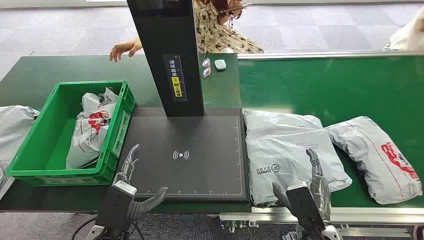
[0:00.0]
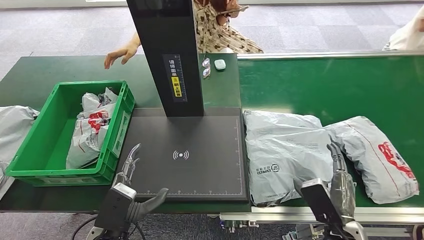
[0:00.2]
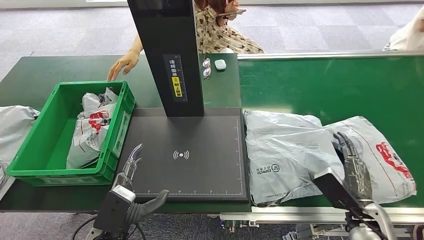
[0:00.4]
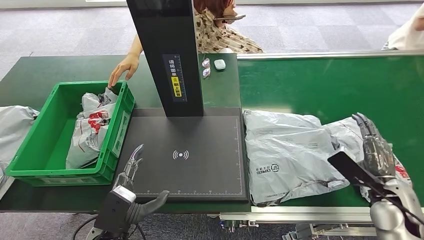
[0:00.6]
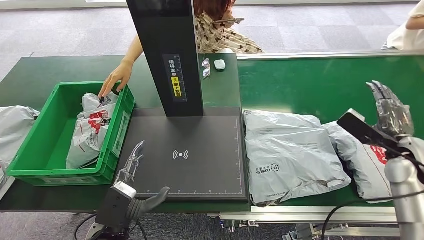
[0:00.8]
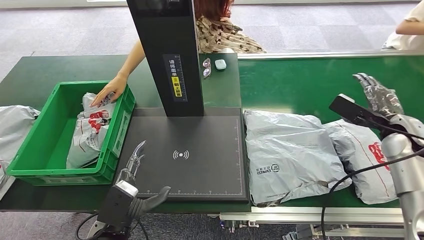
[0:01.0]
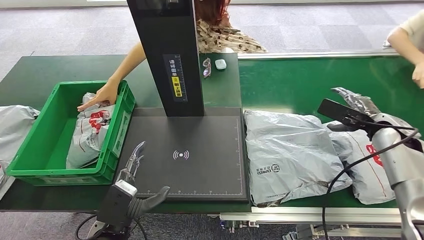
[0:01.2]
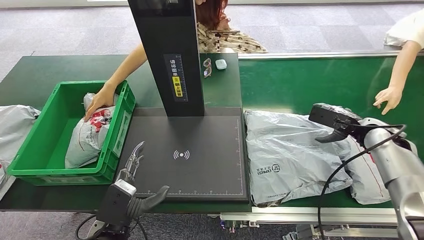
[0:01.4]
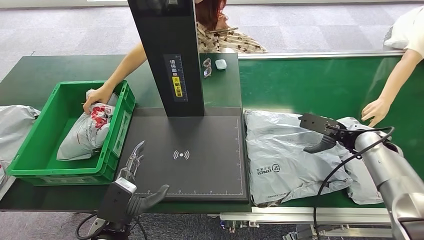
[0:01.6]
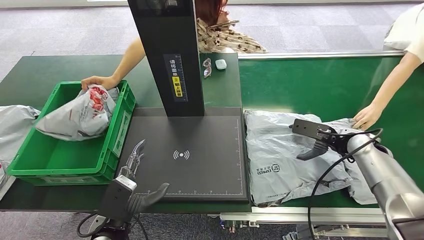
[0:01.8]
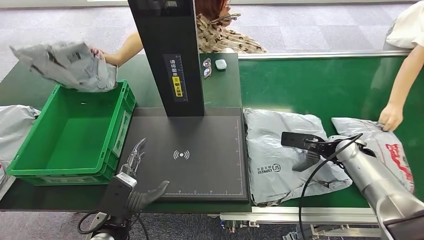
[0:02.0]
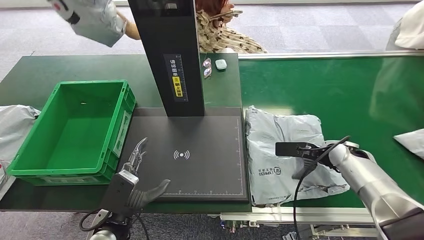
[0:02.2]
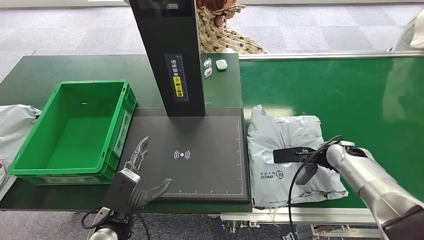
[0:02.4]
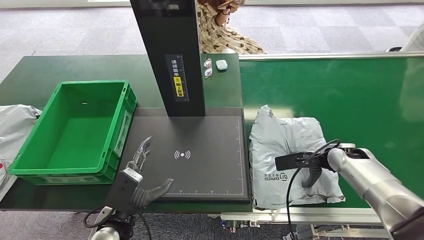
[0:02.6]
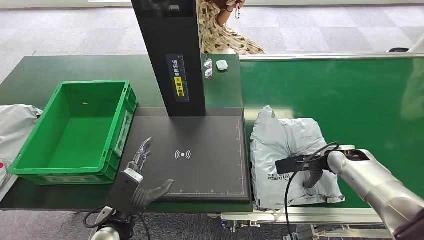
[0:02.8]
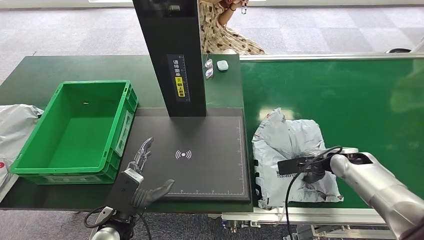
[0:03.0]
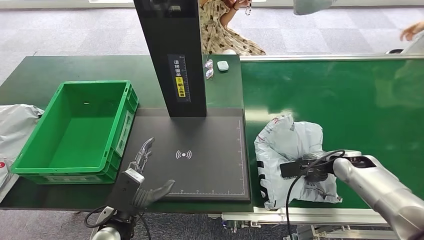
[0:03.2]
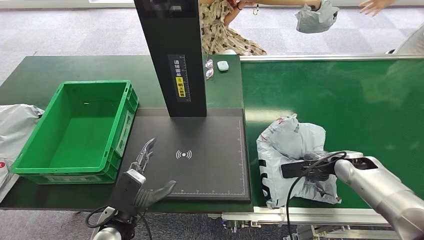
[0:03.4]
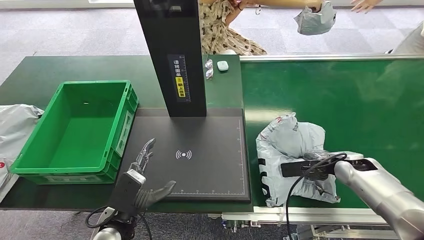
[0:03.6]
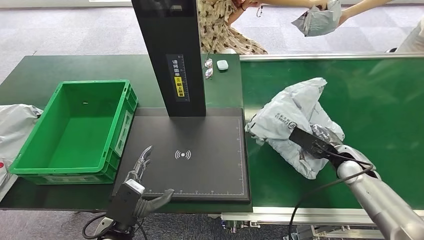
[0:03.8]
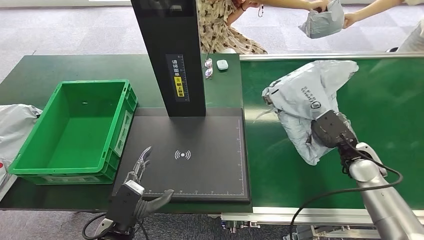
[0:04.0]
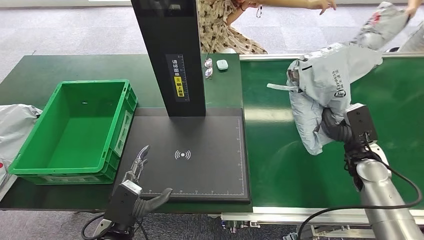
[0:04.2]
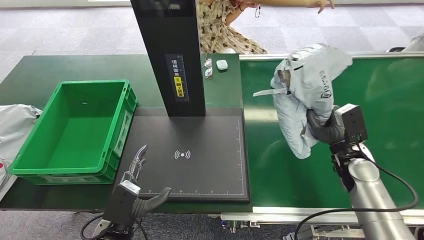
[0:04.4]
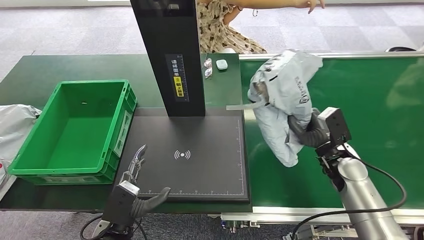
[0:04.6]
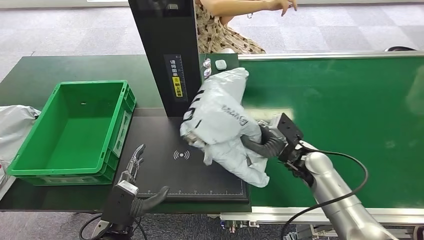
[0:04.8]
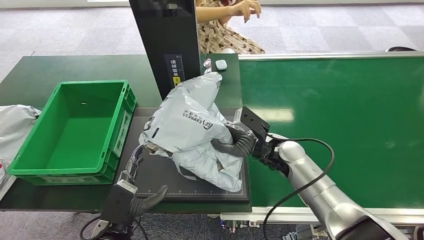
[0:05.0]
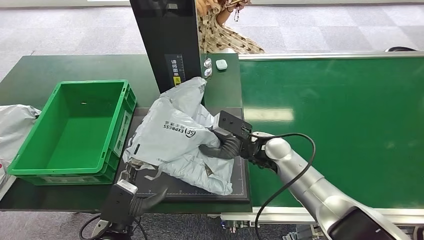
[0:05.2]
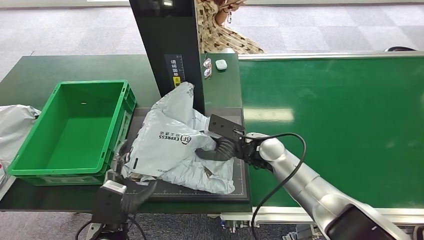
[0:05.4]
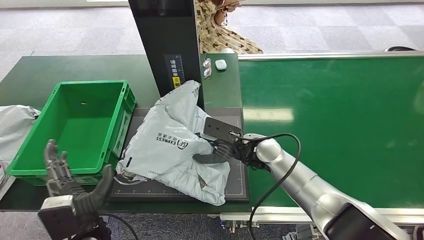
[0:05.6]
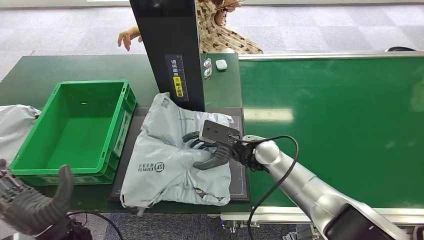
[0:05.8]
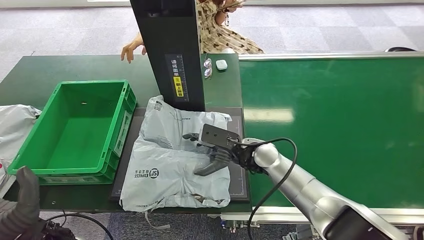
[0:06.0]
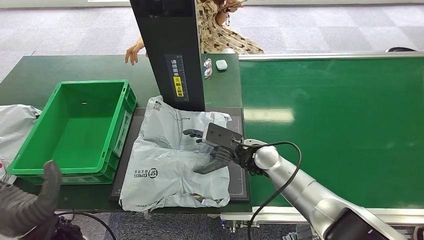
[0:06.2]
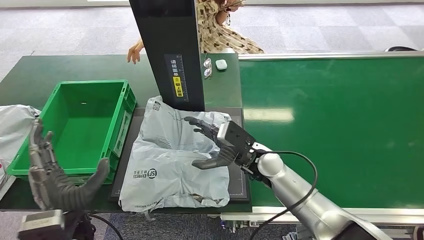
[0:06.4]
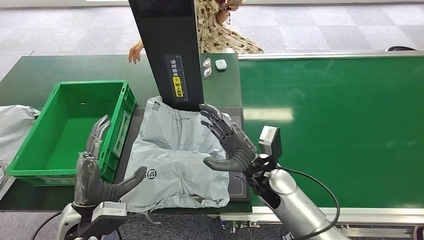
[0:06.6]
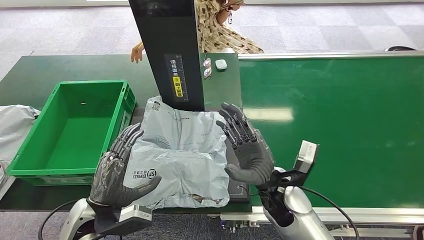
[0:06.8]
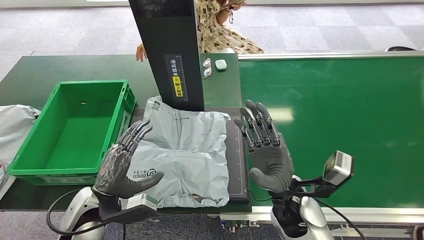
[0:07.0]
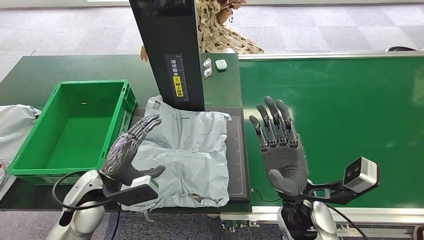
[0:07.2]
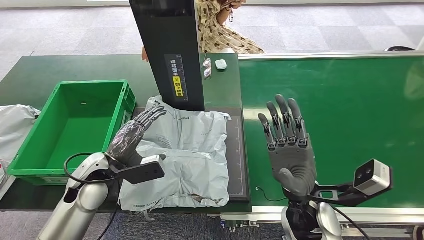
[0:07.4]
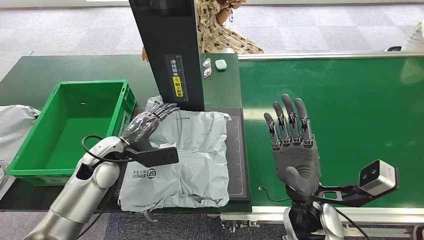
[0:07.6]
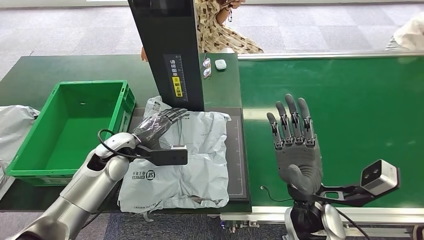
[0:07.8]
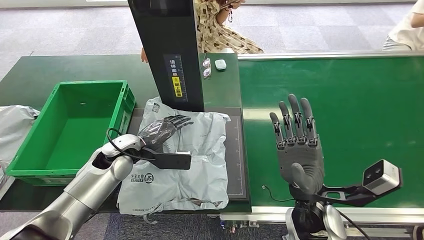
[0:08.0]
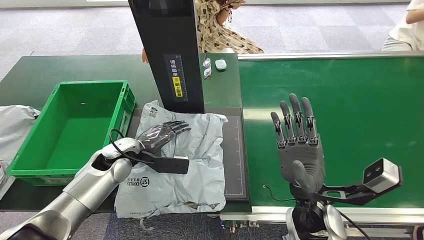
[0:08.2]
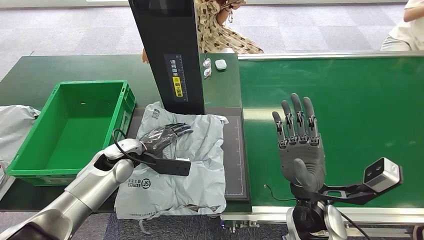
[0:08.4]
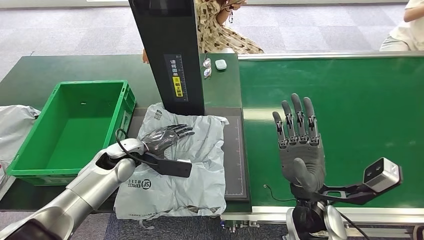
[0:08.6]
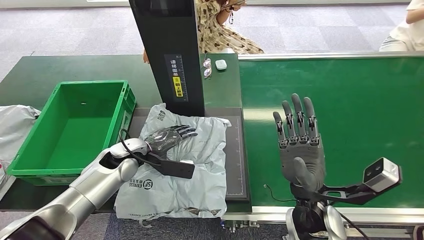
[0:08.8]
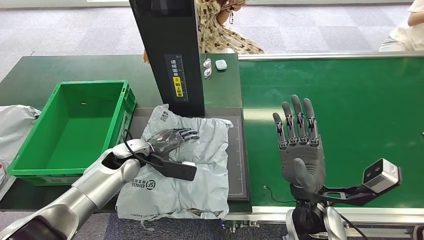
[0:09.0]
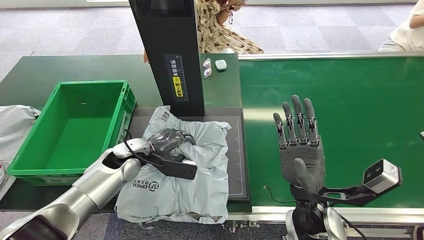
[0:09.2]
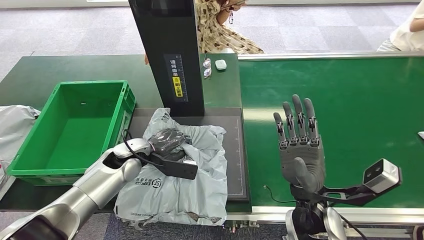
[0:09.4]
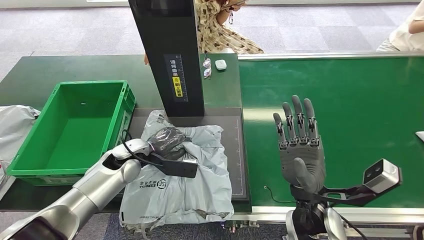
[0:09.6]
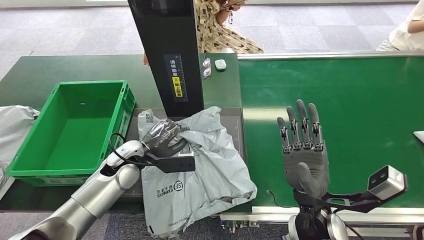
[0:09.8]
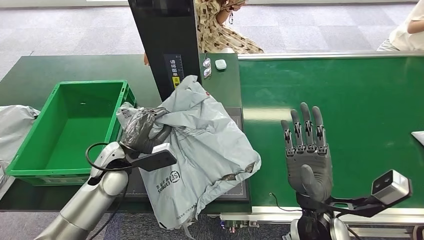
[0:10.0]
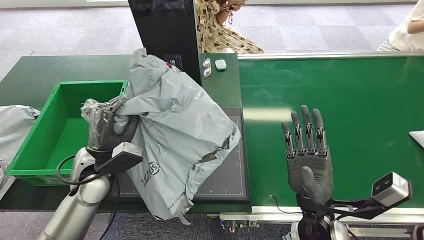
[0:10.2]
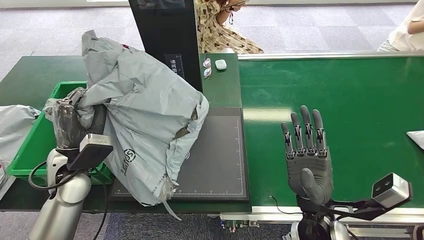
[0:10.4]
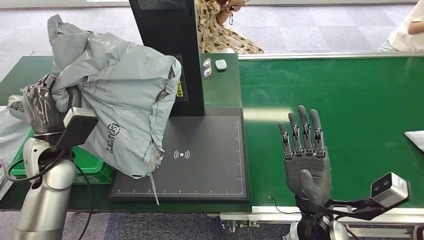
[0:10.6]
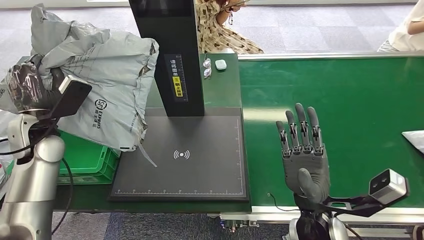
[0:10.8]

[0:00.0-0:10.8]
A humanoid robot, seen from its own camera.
Step, 0:00.0 to 0:04.4: Pick up the package from the conveyor belt.
Step, 0:04.6 to 0:06.2: Place the package onto the inbound machine.
Step, 0:06.6 to 0:10.4: Pick up the package from the inbound machine.
0:07.8 to 0:09.2: There are only small adjustments of the hands.

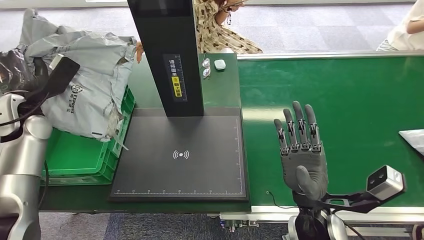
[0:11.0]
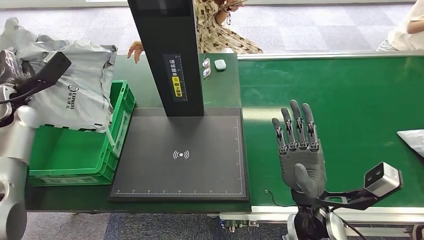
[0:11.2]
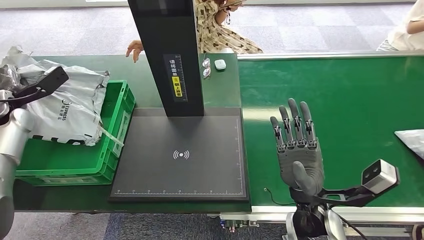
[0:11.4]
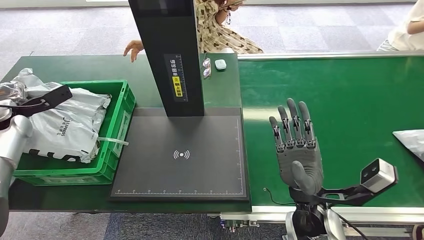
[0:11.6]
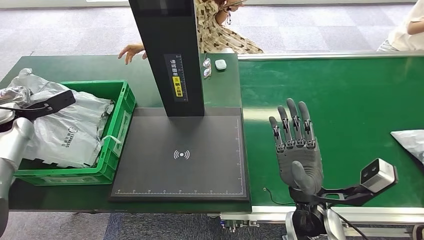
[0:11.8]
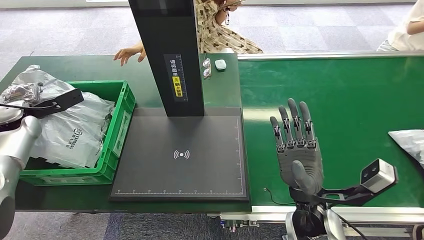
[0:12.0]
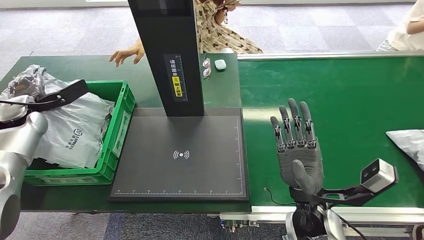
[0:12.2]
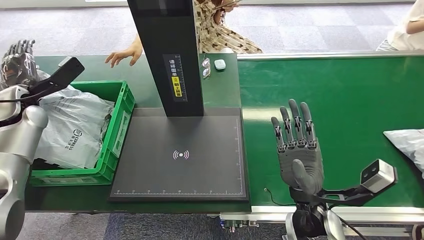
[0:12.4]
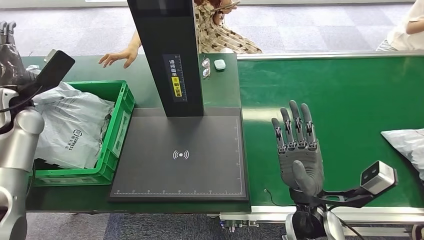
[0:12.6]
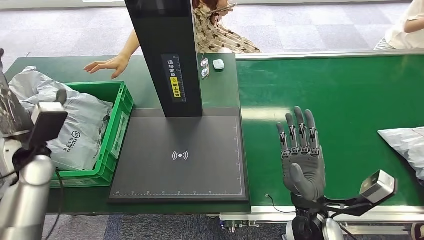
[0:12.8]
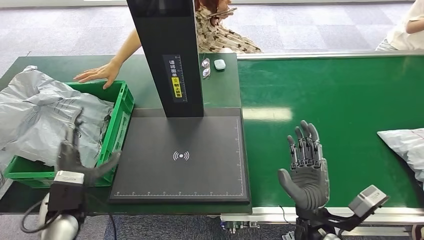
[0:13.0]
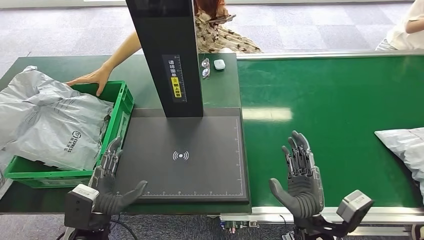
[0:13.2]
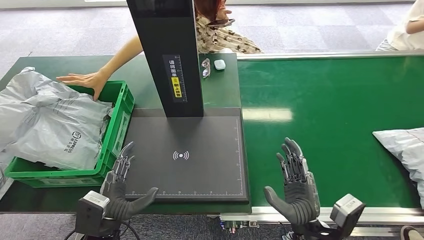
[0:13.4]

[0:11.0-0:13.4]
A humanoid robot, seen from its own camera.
Step, 0:11.0 to 0:13.4: Place the package into the parcel locker.
